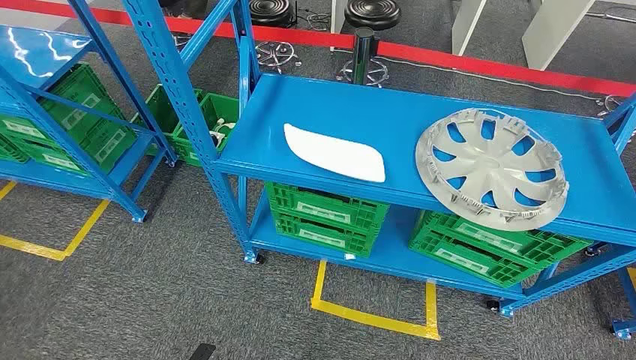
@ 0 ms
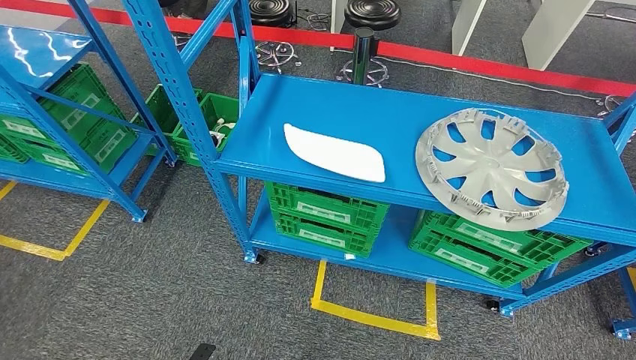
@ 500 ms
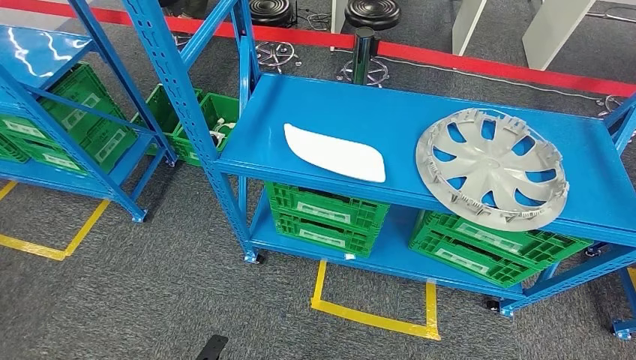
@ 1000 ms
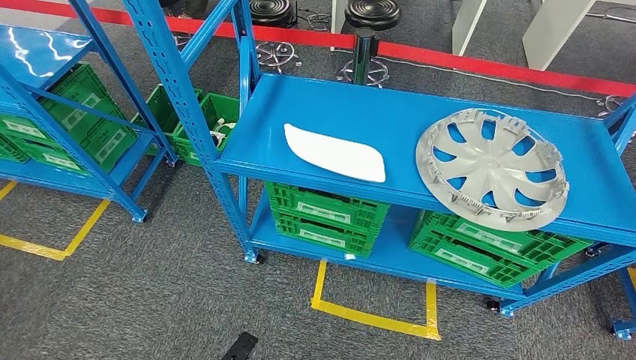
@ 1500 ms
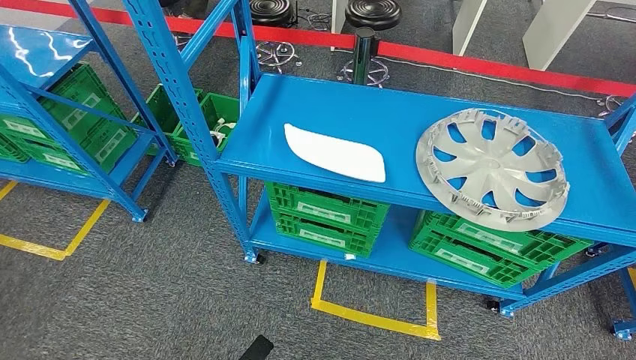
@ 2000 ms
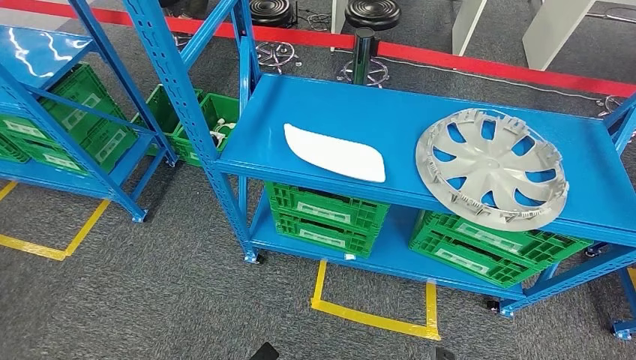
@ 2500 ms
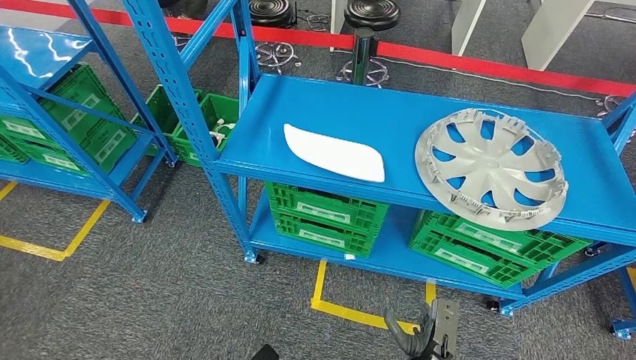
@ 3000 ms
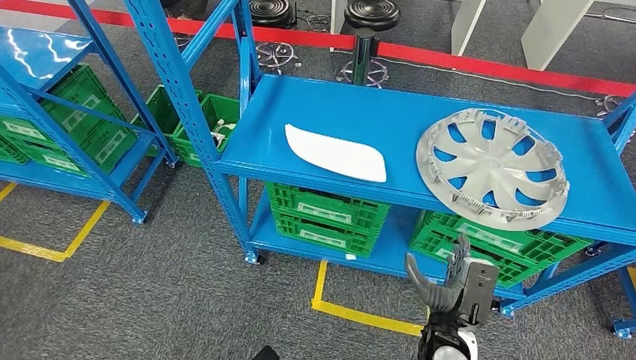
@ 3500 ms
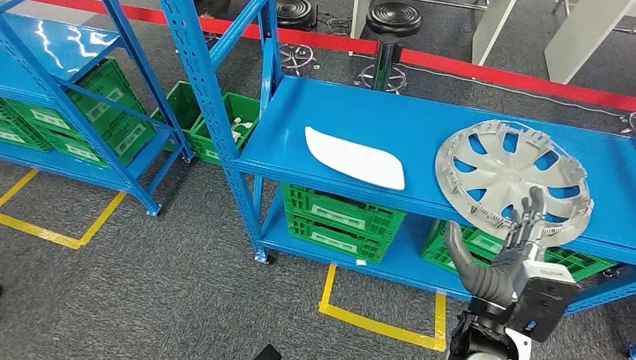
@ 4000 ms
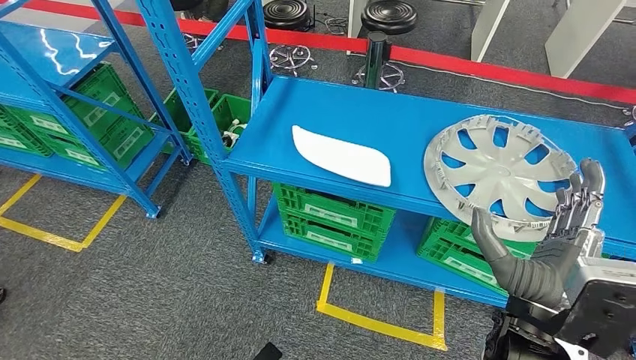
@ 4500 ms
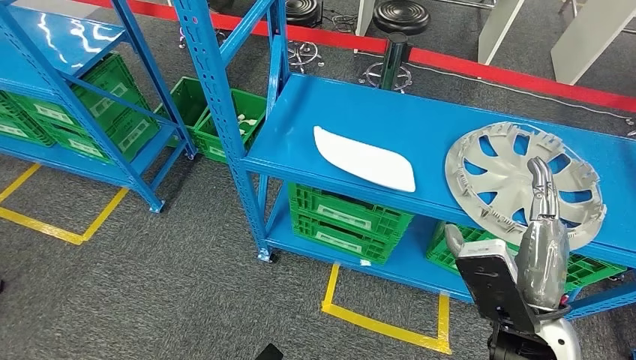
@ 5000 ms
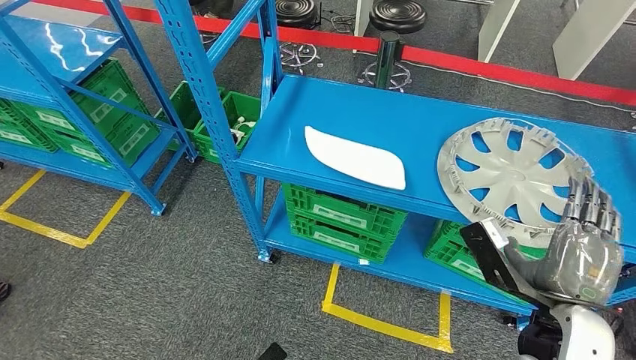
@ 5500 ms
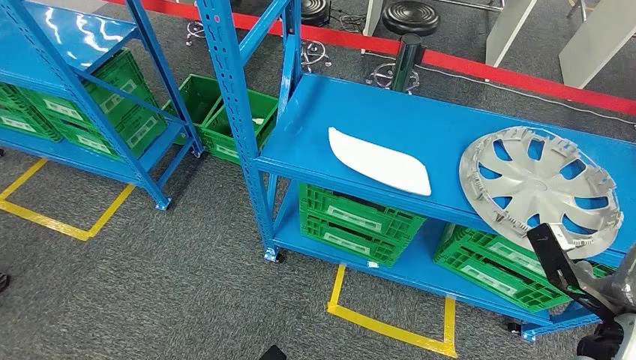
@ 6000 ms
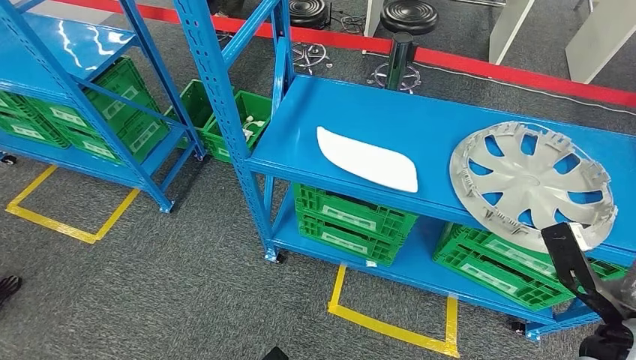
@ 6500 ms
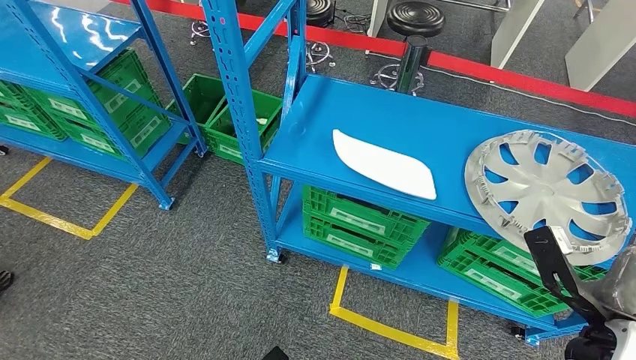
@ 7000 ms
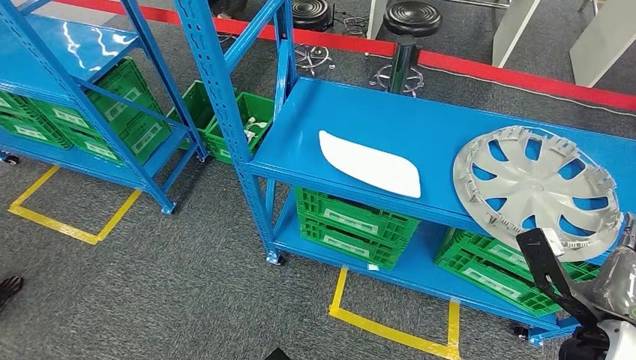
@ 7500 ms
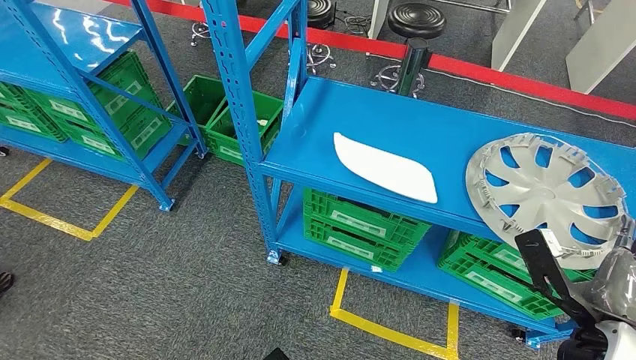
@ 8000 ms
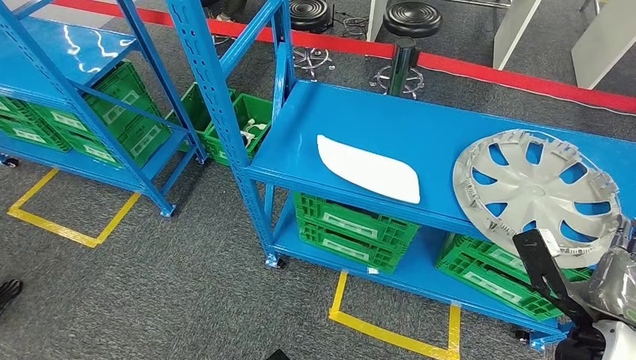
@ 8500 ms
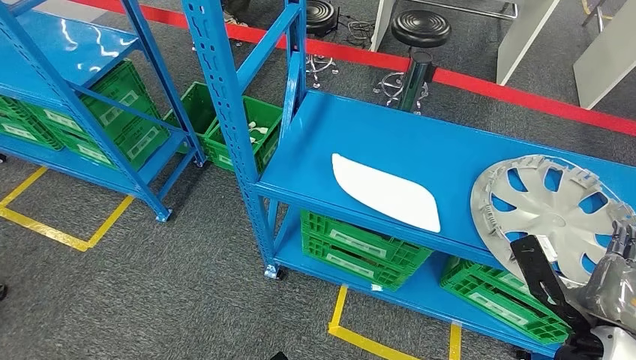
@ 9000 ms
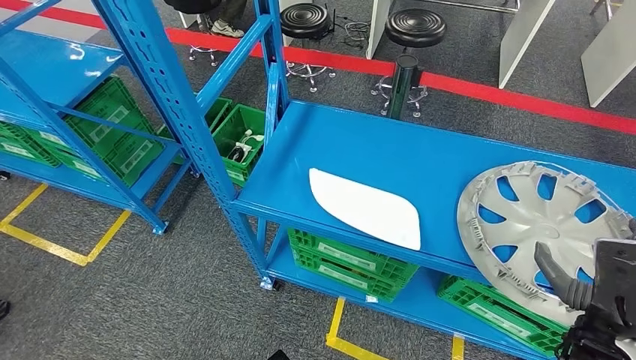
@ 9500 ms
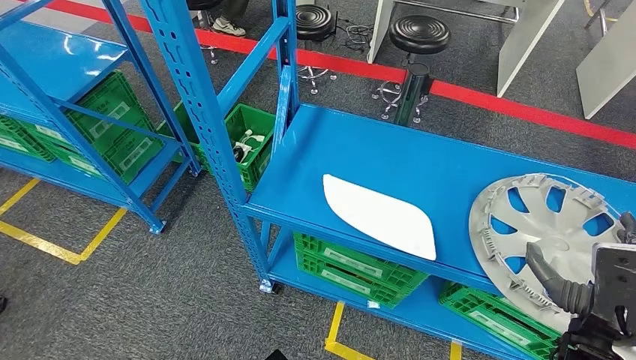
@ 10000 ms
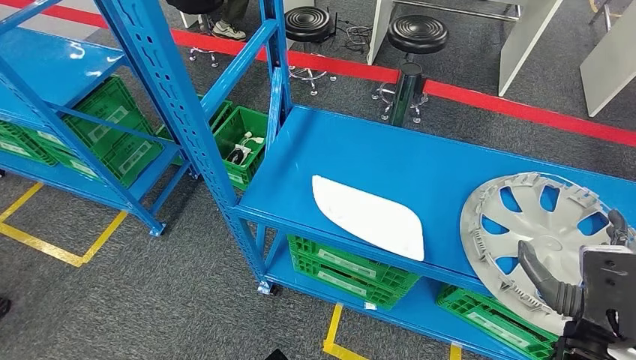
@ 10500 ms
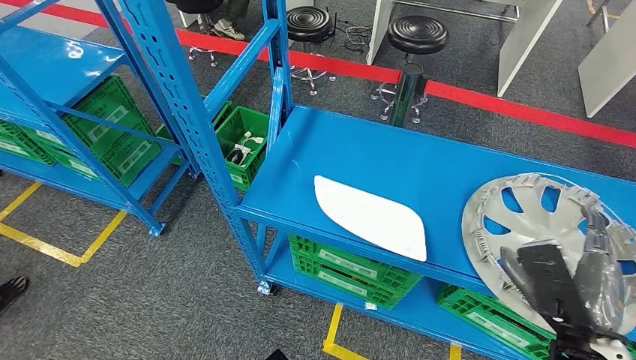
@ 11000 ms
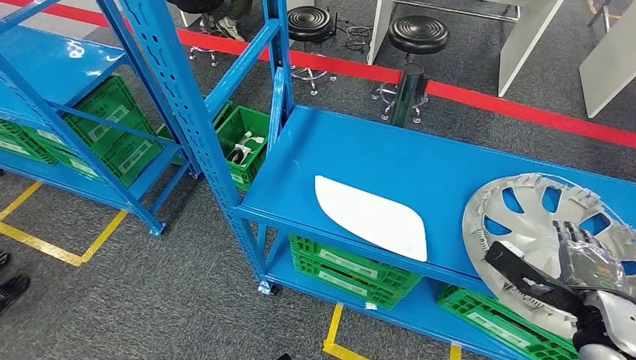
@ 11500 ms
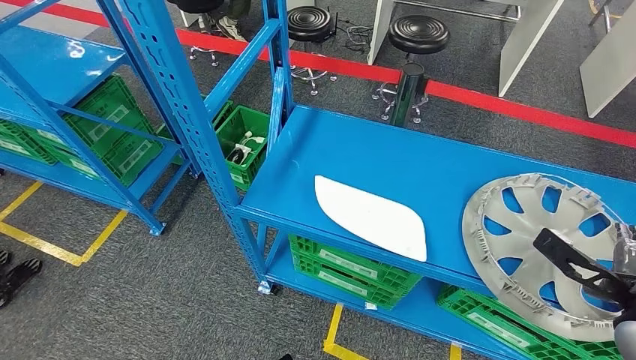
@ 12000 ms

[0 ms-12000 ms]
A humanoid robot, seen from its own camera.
10000 ms to 12000 ms: The right hand moves to the right and forward, about 15 cm.

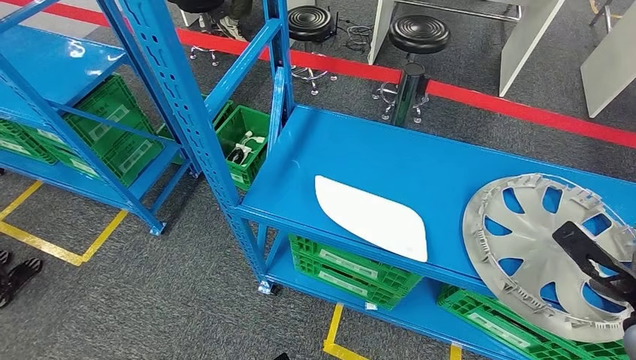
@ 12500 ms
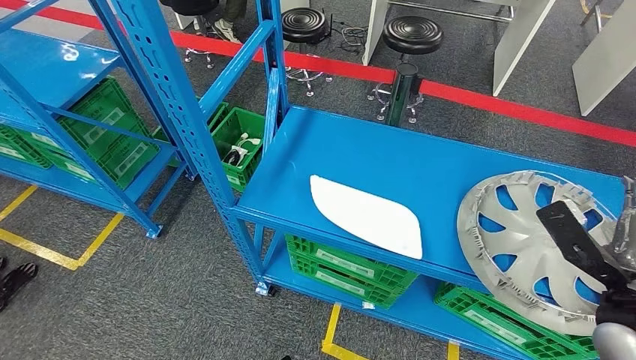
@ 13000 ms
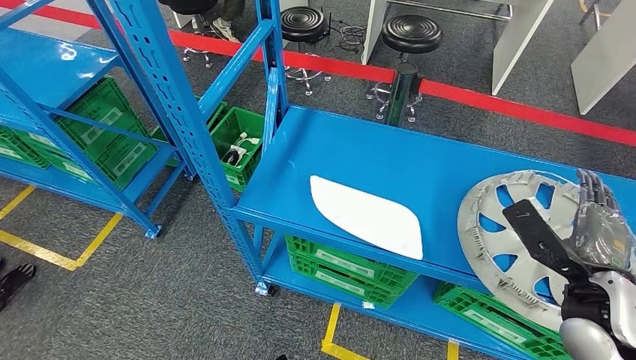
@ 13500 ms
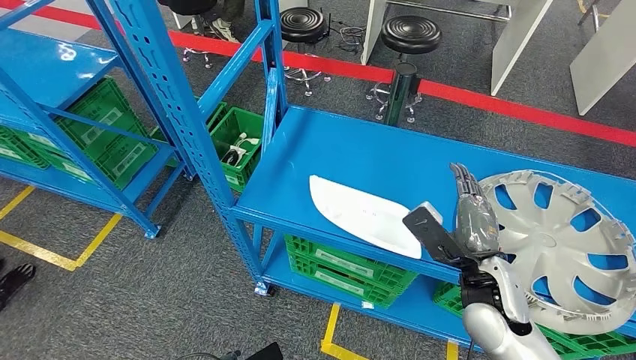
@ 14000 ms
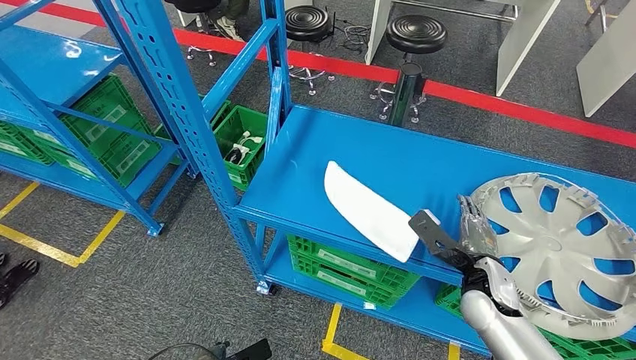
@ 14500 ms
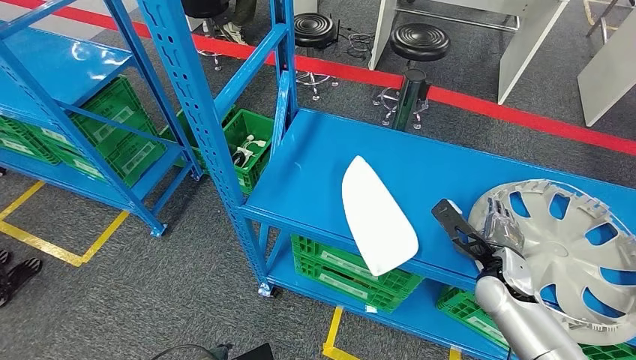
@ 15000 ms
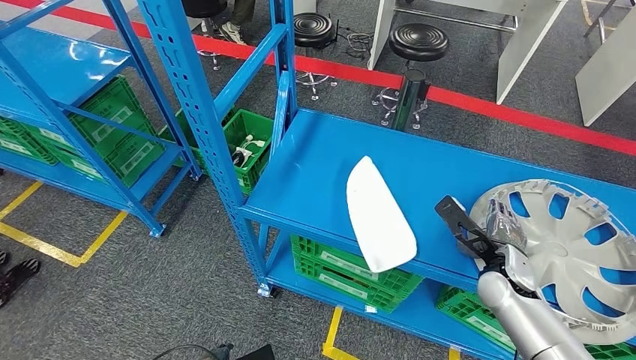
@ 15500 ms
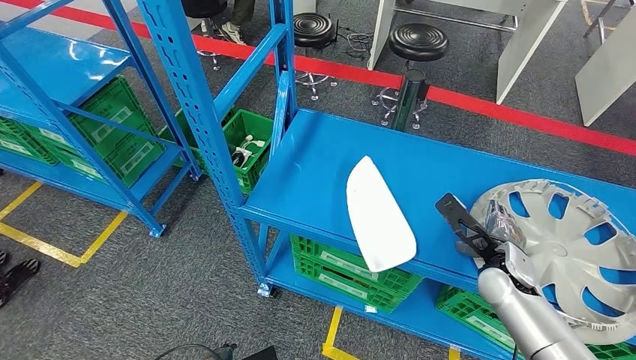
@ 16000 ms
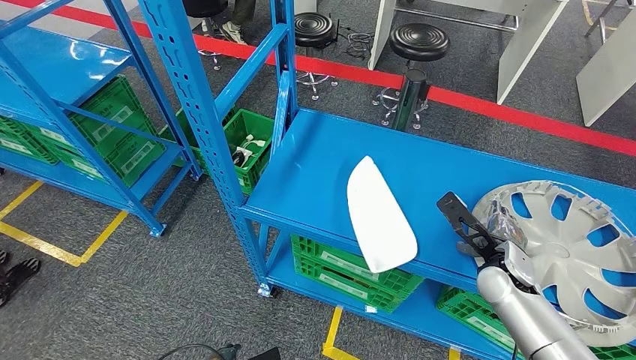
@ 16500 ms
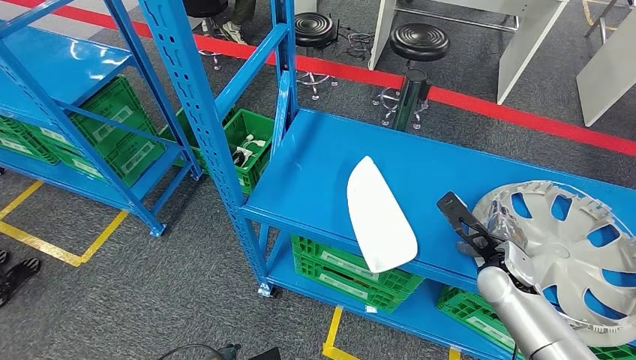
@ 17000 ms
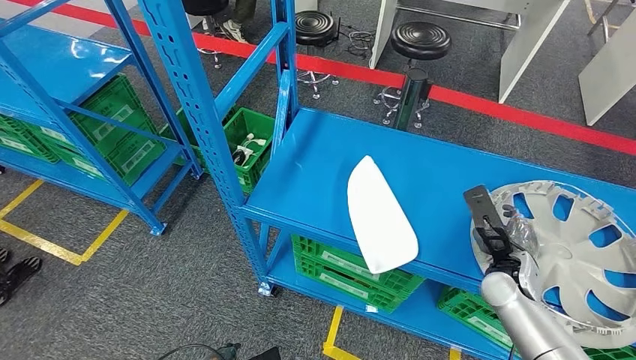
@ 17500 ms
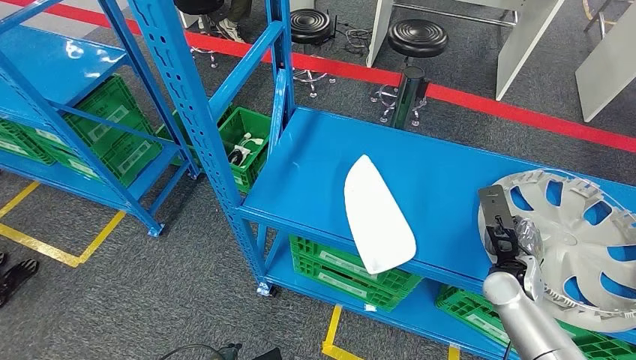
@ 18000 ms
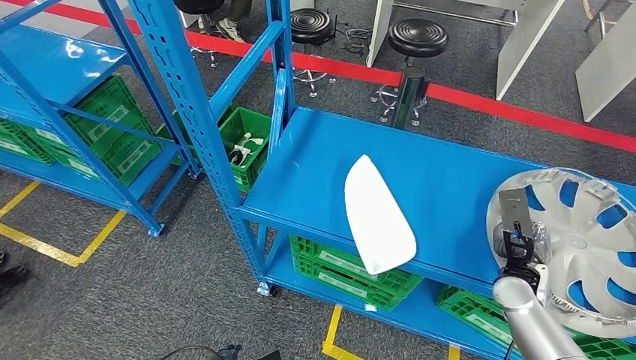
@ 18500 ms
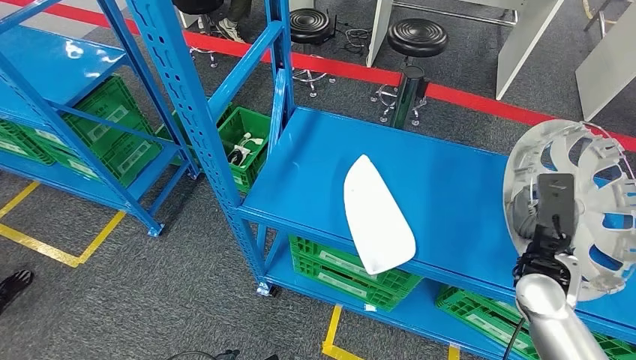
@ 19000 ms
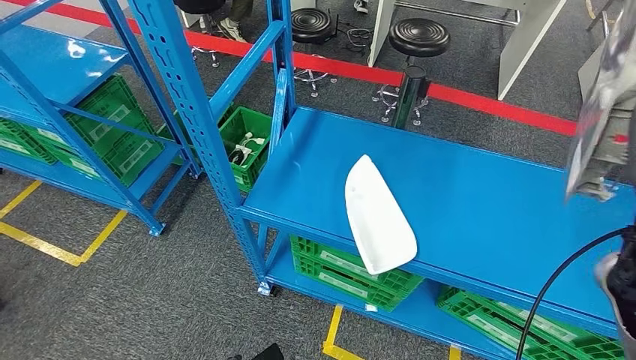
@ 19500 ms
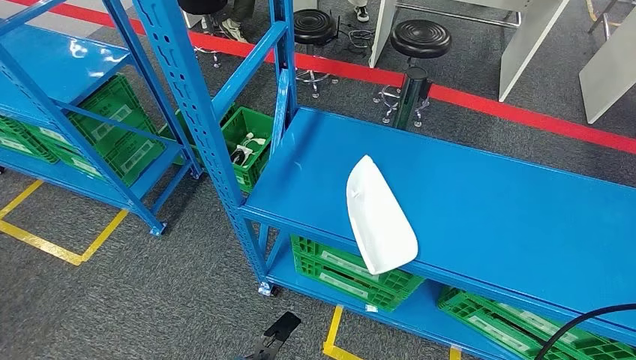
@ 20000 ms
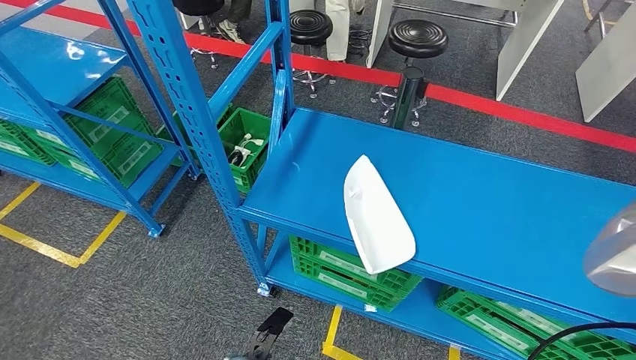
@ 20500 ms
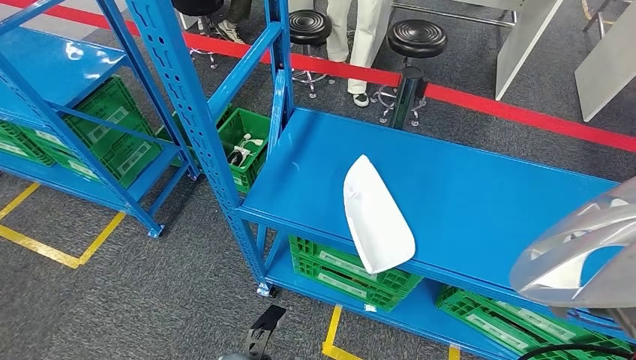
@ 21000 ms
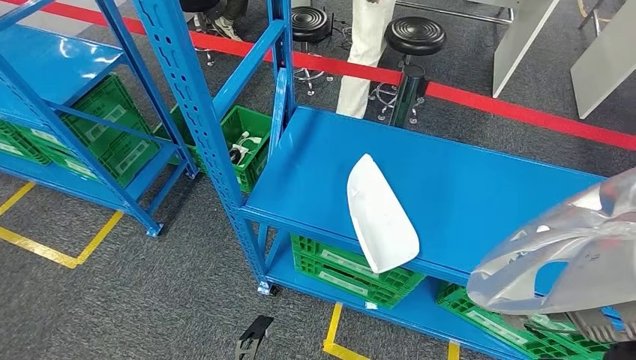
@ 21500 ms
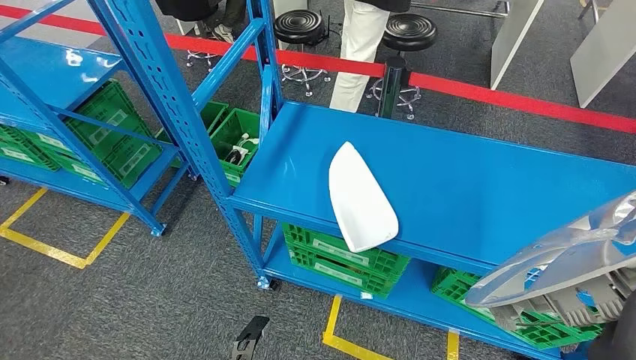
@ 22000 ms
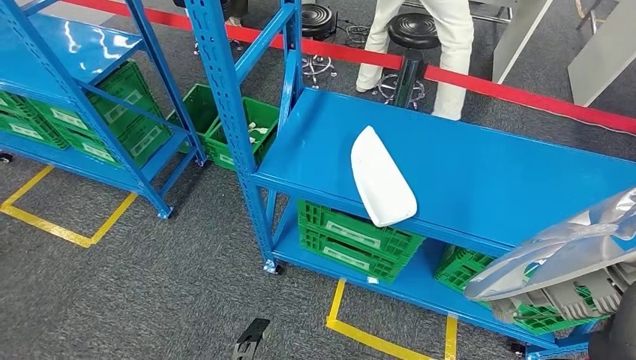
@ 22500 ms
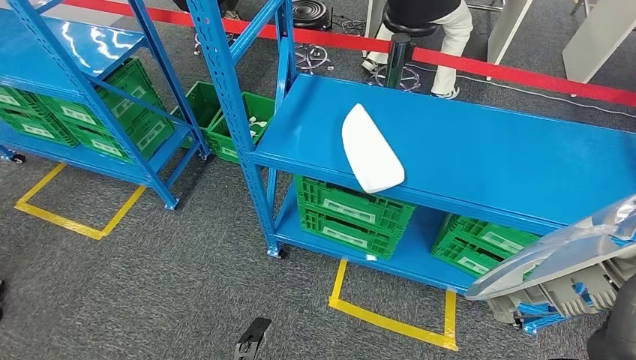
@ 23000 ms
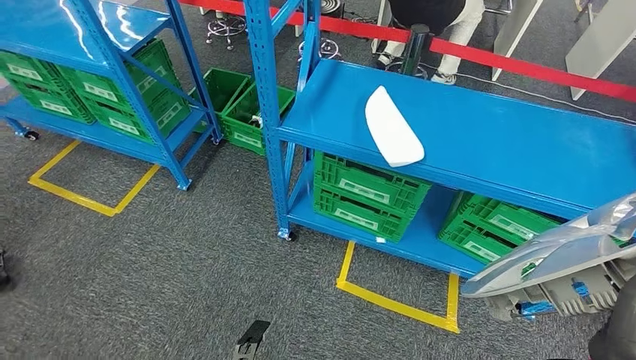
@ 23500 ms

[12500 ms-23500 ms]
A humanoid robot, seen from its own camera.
Step, 12500 ms to 21000 ms: Pick up the small component from the shelf.
12500 ms to 14500 ms: The left hand moves to the left, some 5 cm; the right hand travels to the left and downward by about 20 cm.
